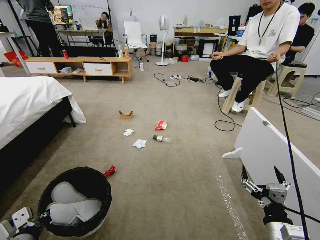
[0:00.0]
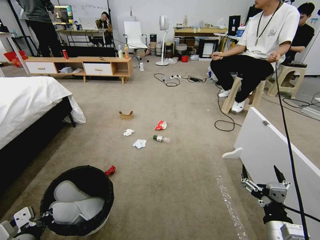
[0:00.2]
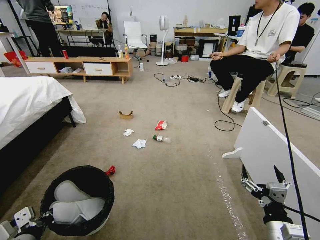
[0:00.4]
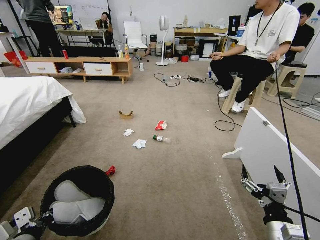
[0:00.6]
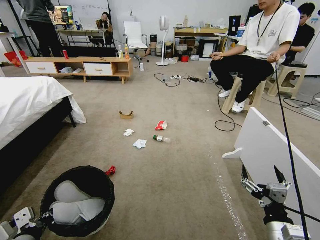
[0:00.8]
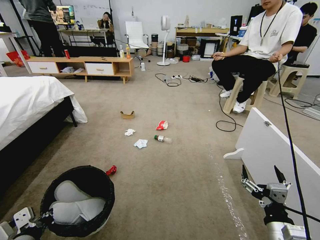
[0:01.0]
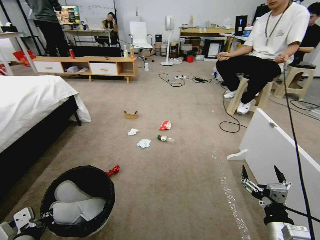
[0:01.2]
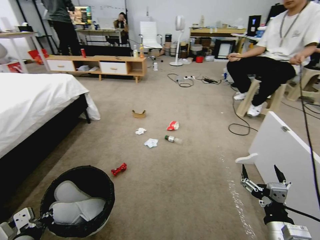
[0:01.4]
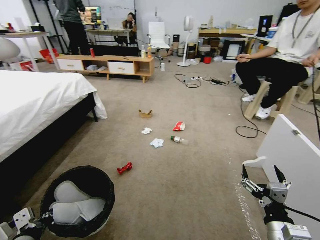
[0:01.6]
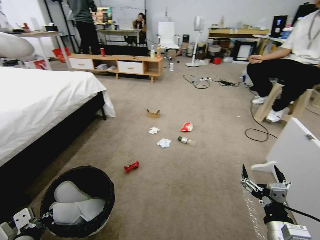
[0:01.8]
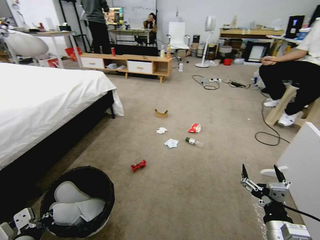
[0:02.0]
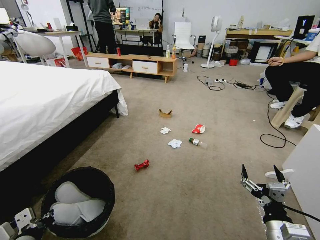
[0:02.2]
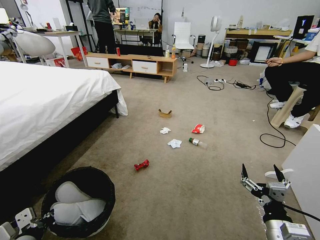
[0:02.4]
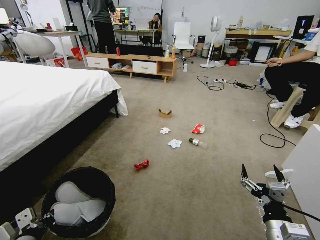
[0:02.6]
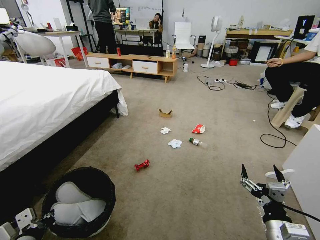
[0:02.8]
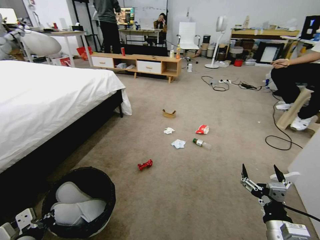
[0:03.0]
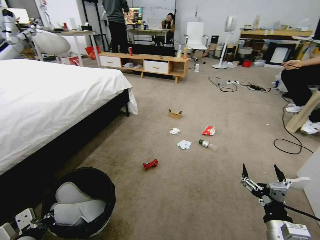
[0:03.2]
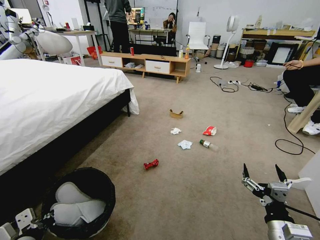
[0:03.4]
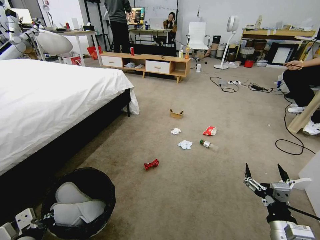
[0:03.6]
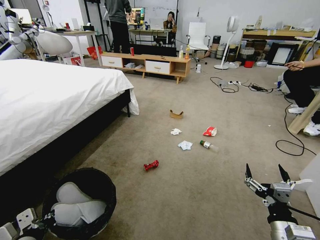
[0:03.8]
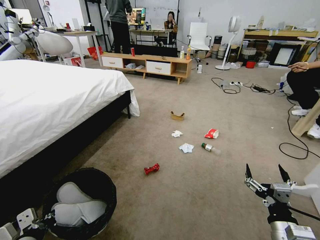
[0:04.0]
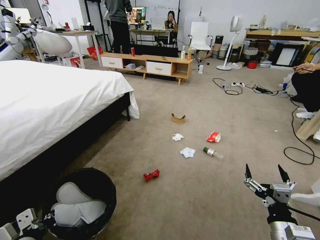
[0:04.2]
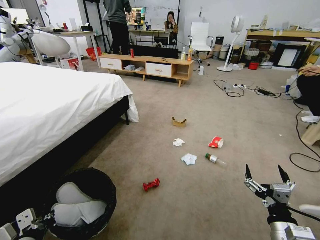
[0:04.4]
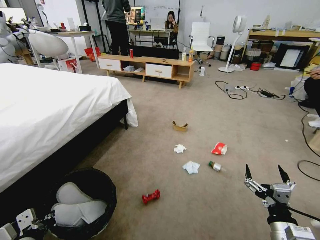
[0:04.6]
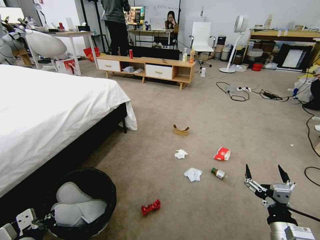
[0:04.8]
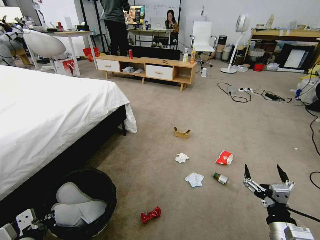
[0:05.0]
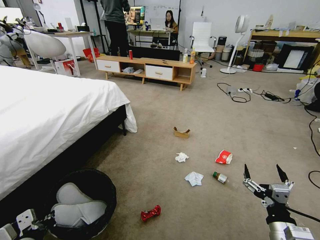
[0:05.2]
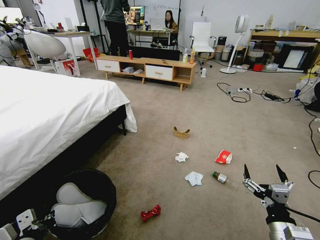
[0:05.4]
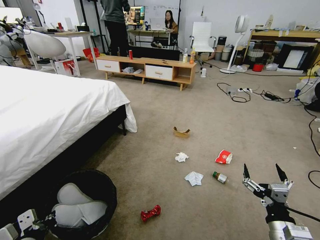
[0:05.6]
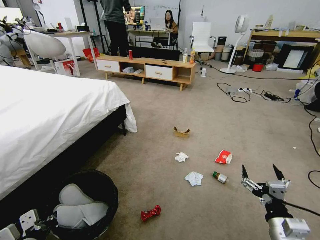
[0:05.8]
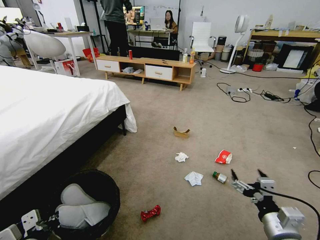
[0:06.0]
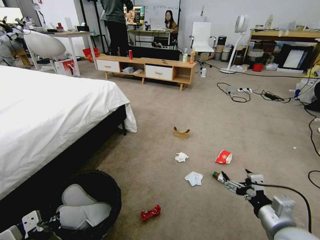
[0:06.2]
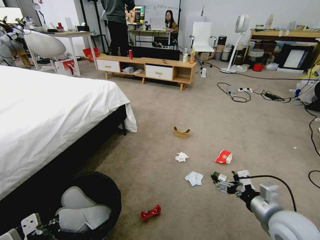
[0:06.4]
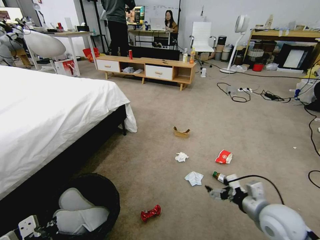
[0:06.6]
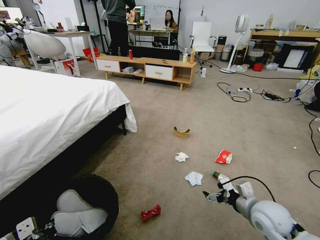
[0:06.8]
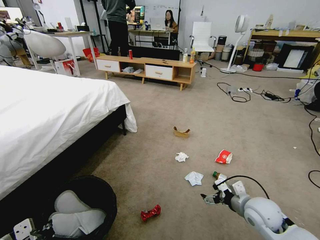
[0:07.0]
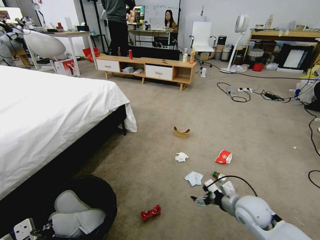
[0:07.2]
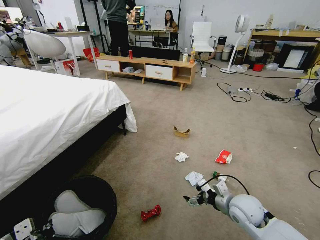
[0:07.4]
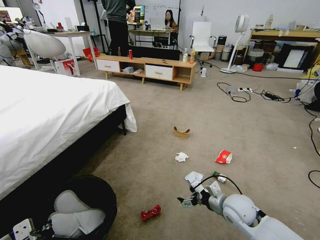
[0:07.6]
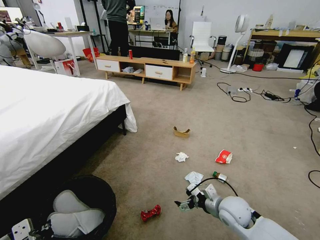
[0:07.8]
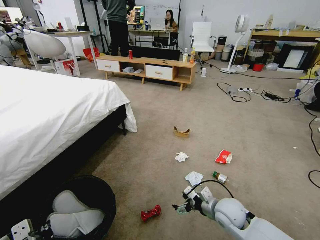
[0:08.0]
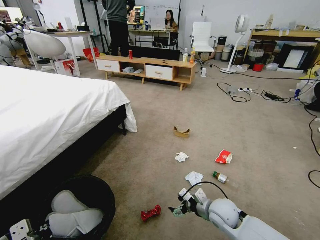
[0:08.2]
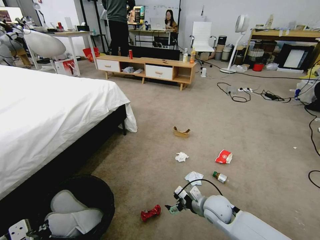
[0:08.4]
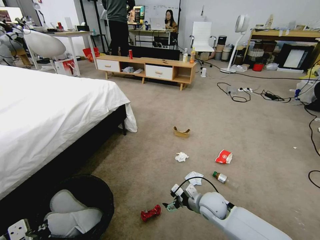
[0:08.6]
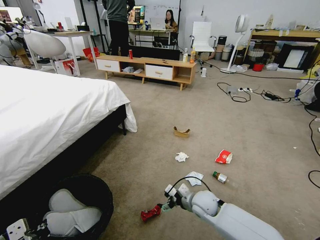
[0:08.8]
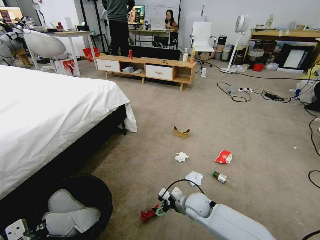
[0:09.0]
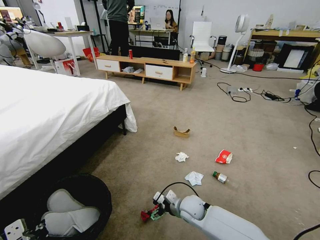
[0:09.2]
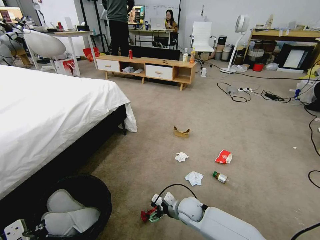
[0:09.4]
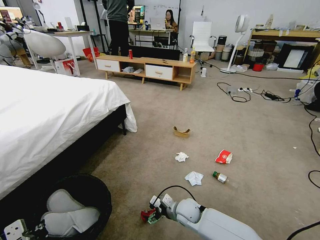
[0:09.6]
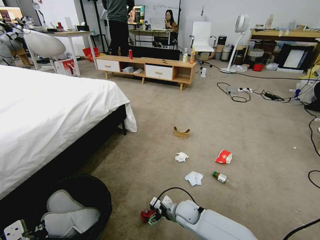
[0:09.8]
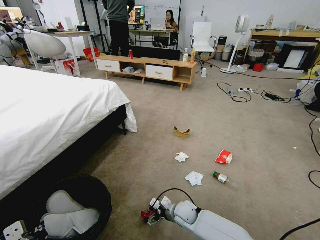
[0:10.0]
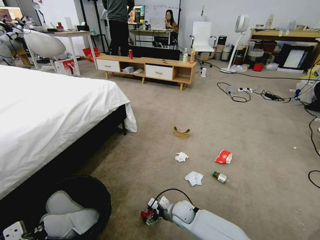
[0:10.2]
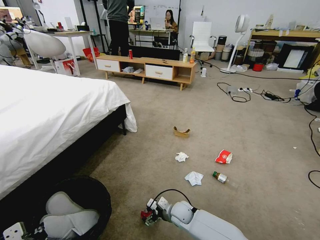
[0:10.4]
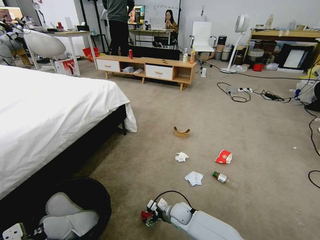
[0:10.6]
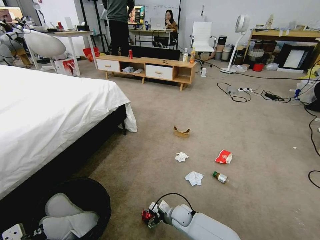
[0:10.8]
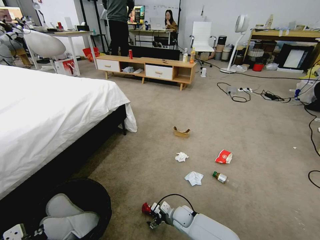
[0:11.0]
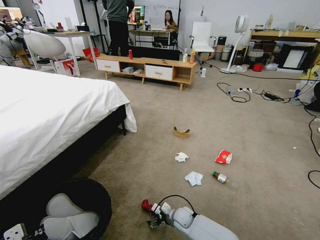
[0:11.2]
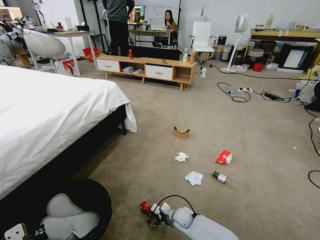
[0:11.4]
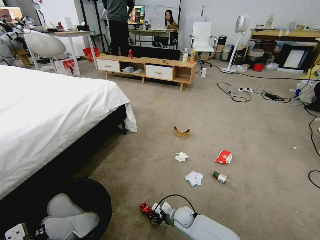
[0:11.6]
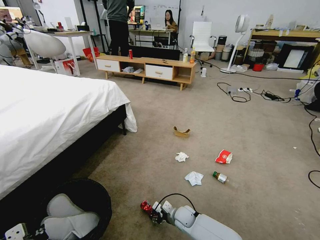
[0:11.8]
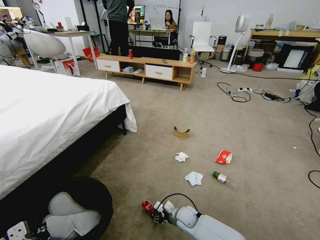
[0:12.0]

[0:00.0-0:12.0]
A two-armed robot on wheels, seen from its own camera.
Task of the whole recording: Pick up the trash bin and place the garbage on the floor into it.
0:06.0 to 0:07.6: The right gripper heads forward, covering some 15 cm.
0:07.6 to 0:09.0: The right gripper heads to the left and downward, covering approximately 15 cm.
0:09.0 to 0:10.4: The right gripper travels downward and to the left by approximately 10 cm.
0:10.4 to 0:12.0: The right gripper closes.

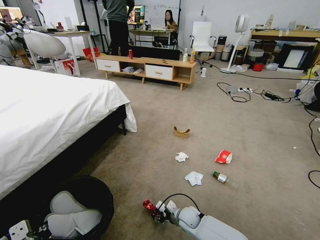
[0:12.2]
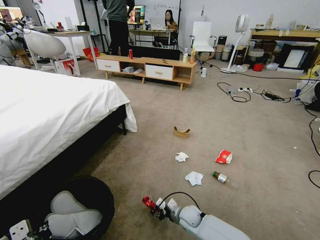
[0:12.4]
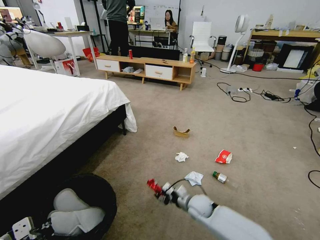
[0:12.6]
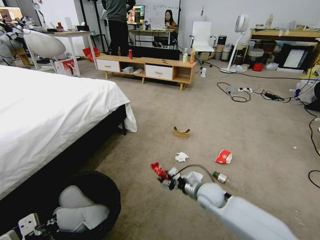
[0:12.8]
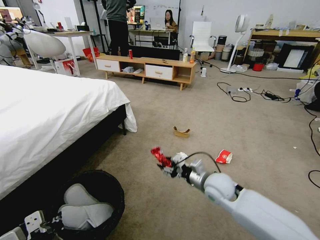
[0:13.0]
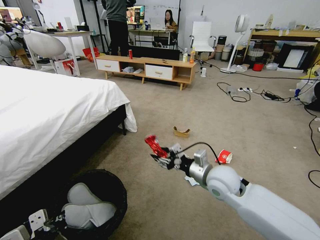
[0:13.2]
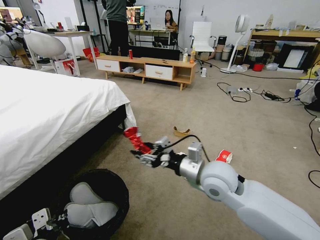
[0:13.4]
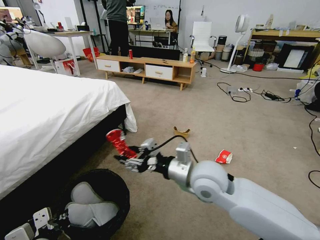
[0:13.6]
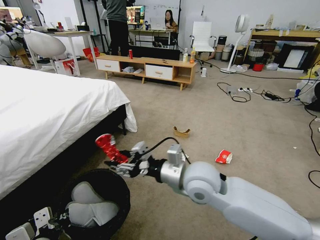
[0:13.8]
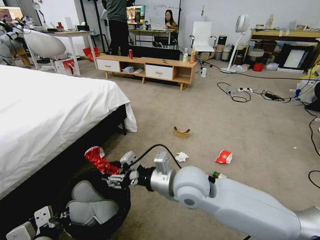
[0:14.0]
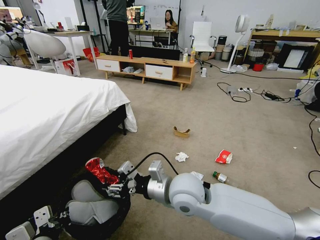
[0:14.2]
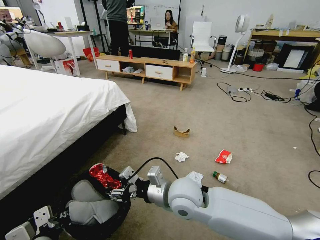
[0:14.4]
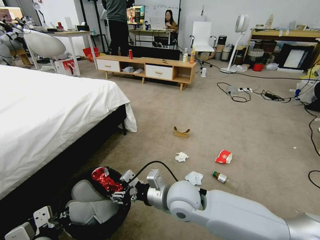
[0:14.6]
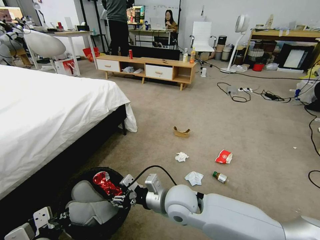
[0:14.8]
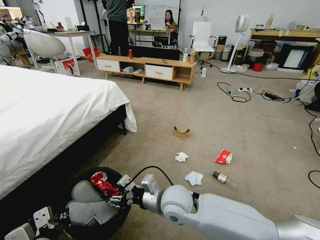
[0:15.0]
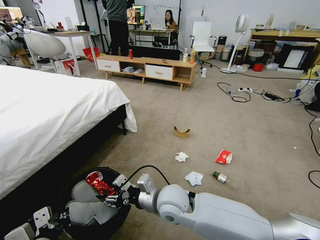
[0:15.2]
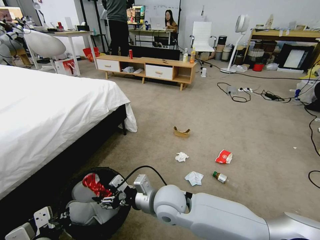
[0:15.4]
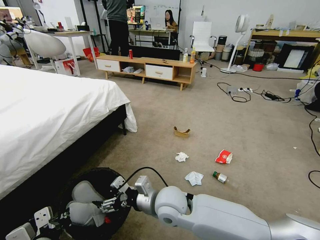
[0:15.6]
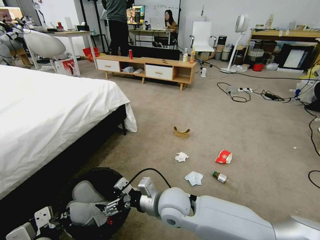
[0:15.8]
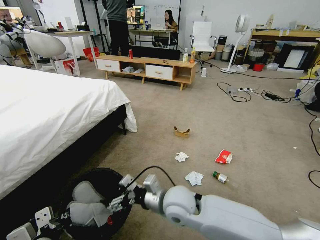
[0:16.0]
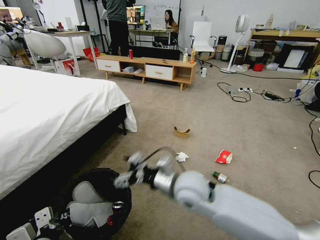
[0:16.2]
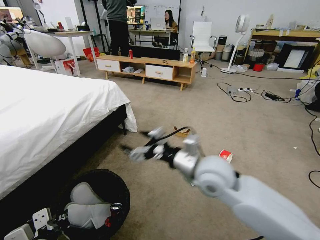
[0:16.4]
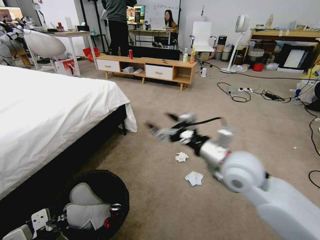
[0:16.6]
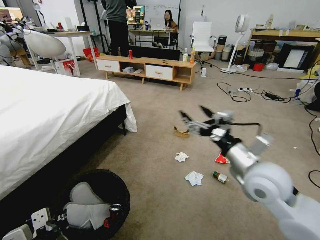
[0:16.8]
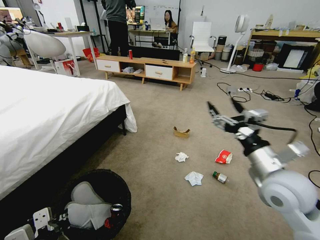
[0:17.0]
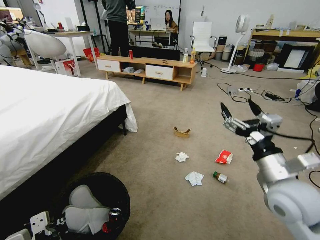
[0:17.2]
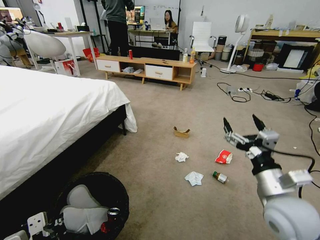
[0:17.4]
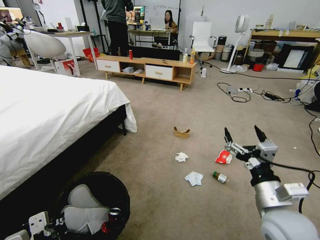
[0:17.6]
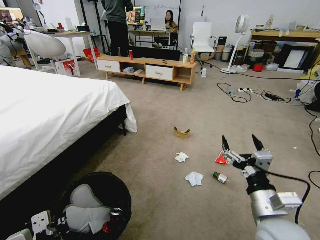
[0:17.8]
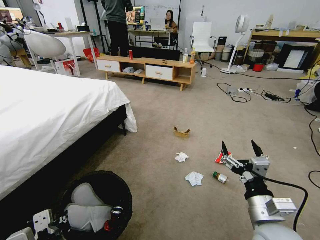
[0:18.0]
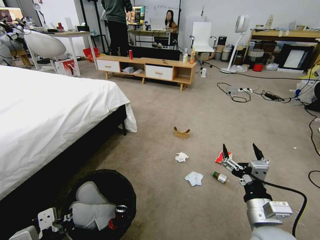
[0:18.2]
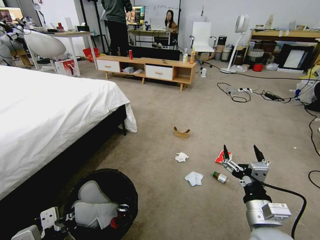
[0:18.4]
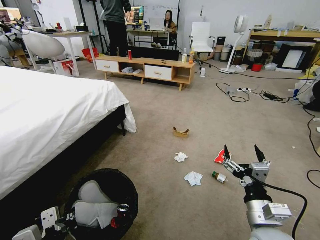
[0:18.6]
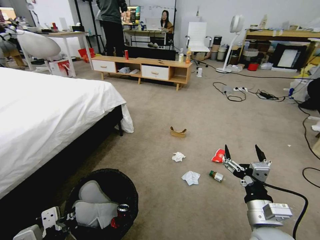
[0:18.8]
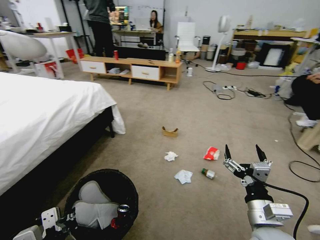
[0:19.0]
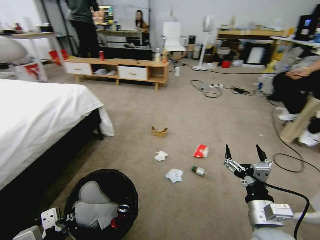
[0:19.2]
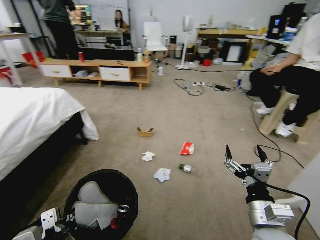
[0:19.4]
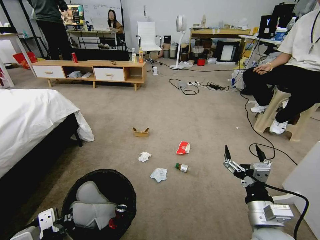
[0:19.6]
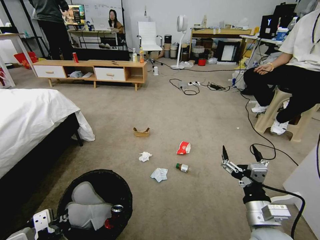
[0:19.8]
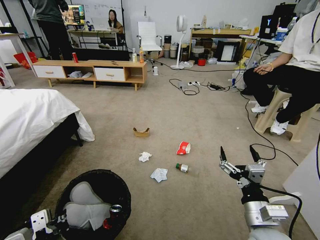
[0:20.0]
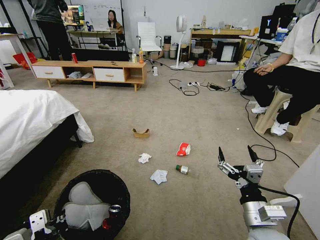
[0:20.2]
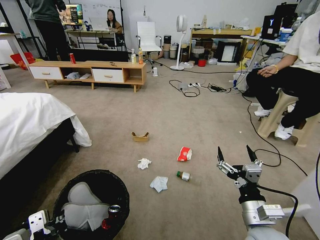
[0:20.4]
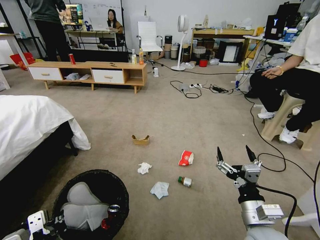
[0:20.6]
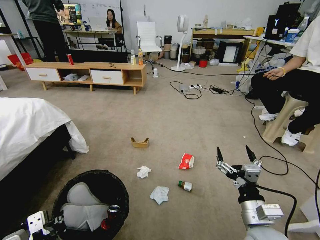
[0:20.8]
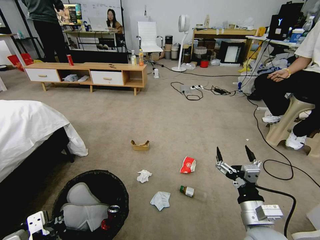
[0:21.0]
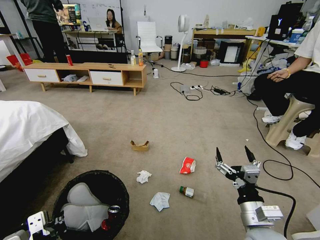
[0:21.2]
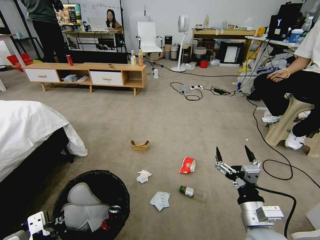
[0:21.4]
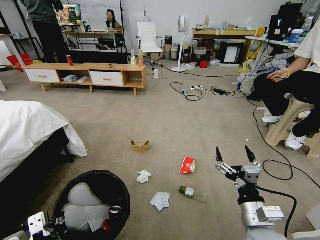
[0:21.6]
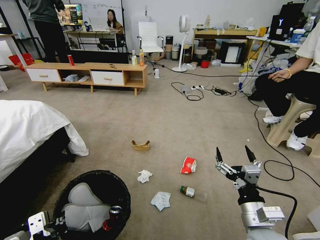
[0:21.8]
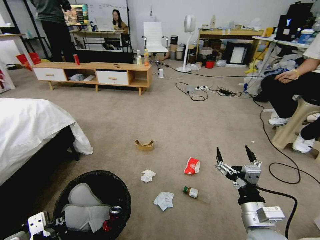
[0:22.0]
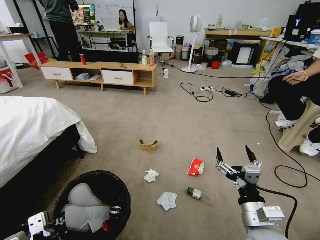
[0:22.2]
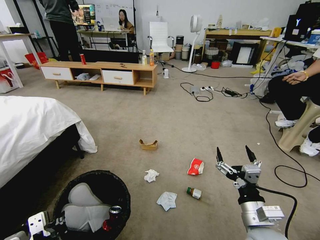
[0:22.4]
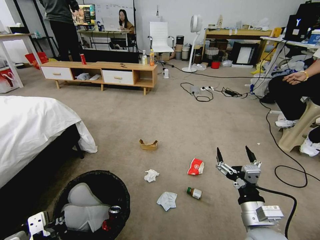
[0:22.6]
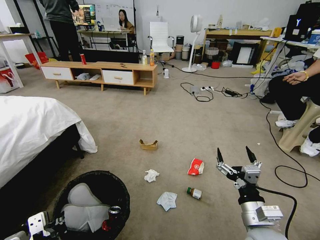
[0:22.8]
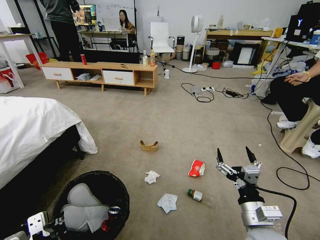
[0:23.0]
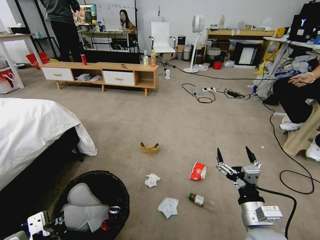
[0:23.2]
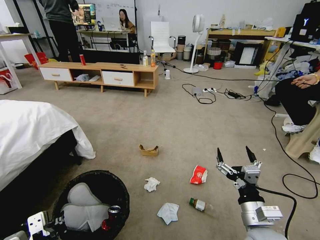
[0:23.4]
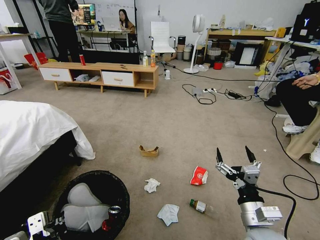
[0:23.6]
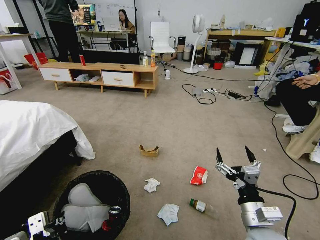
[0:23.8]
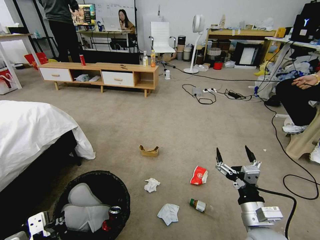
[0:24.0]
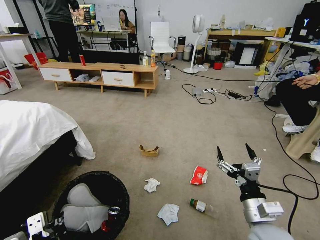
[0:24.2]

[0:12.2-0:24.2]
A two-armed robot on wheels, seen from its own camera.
Task of the whole recording: Pick up the trash bin and place the garbage on the floor into it.
0:12.2 to 0:13.8: The right gripper moves upward, approximately 35 cm.
0:13.8 to 0:15.2: The right gripper is displaced downward and to the left by approximately 10 cm.
0:15.2 to 0:16.6: The right gripper heads to the right and upward, covering some 20 cm, and opens up.
0:16.6 to 0:18.2: The right gripper moves downward, backward and to the right, approximately 20 cm.
